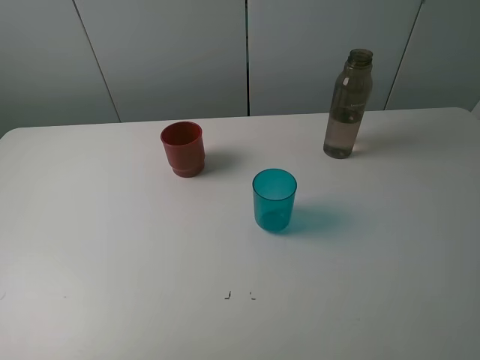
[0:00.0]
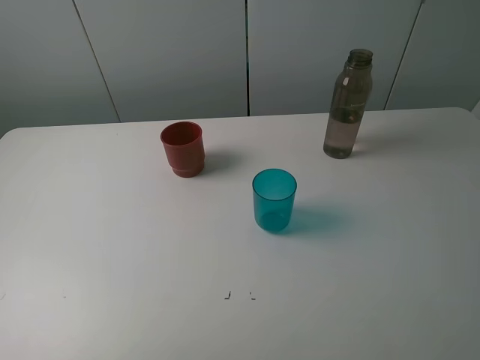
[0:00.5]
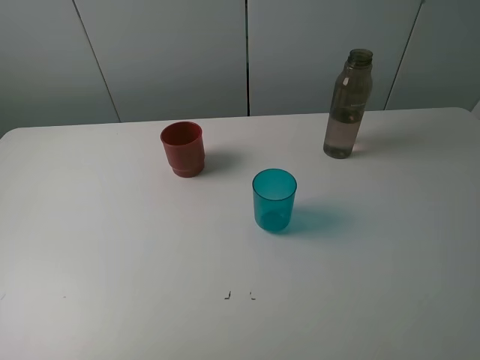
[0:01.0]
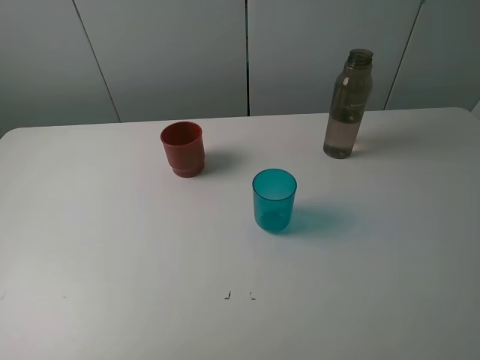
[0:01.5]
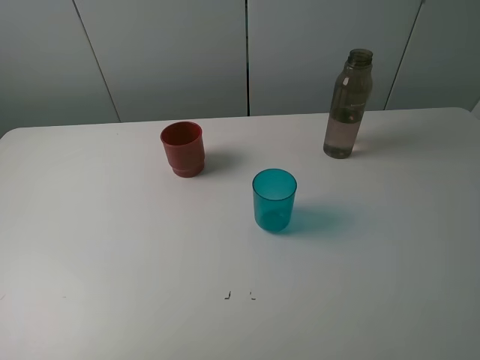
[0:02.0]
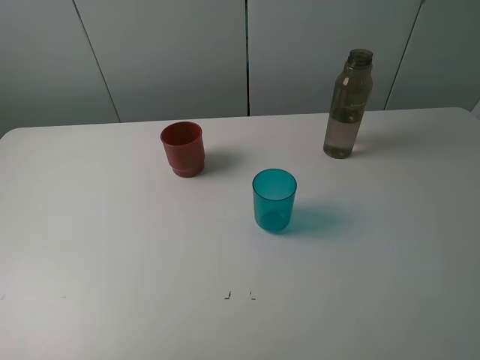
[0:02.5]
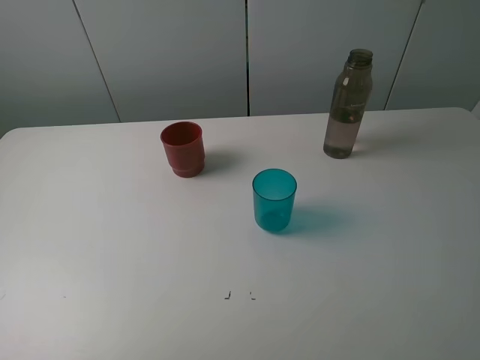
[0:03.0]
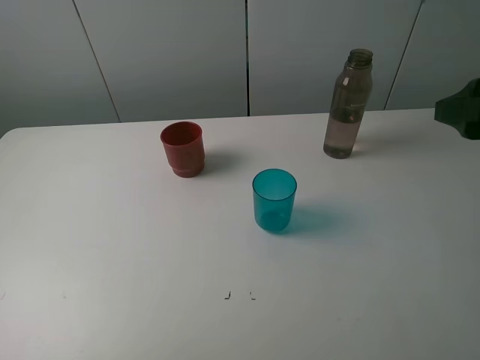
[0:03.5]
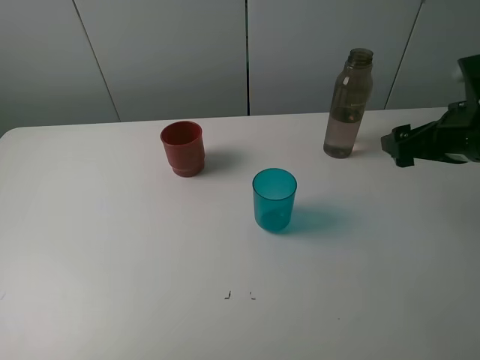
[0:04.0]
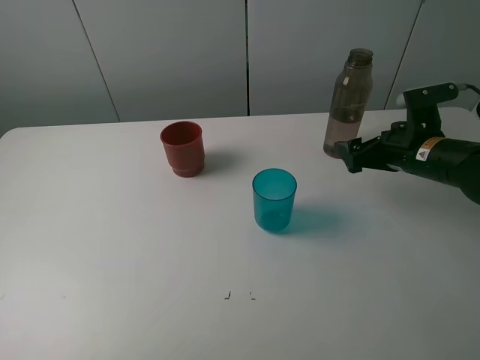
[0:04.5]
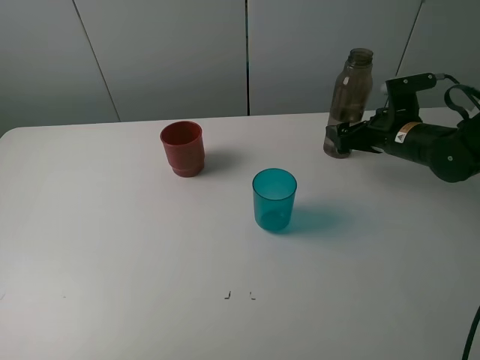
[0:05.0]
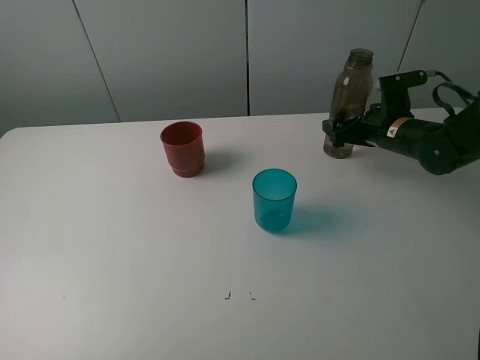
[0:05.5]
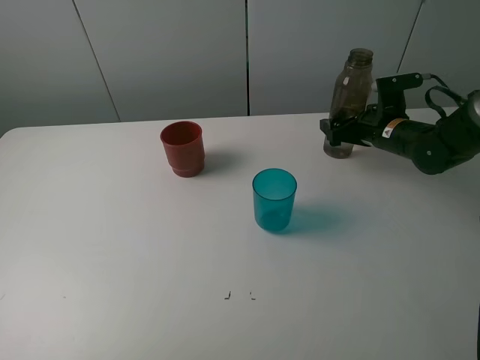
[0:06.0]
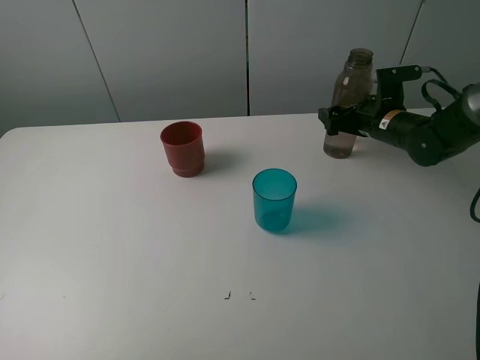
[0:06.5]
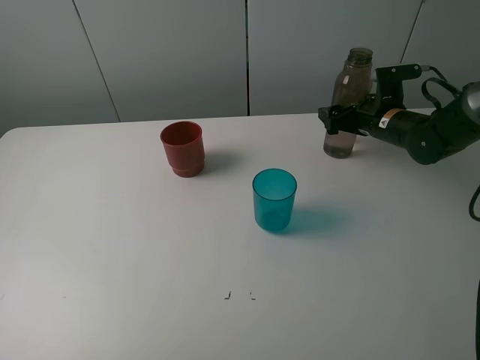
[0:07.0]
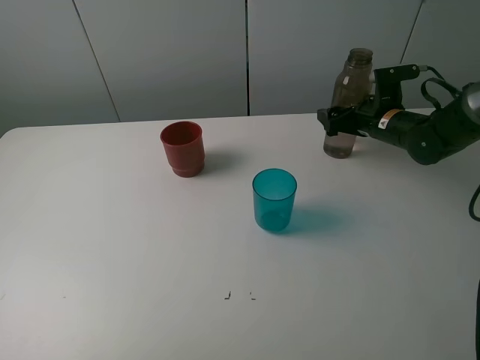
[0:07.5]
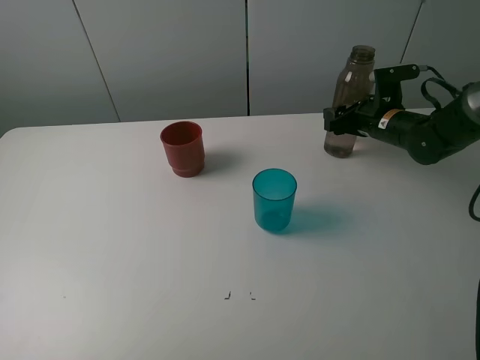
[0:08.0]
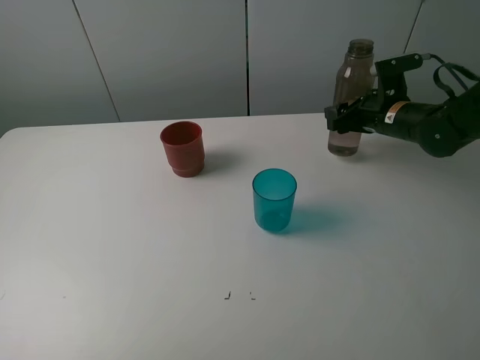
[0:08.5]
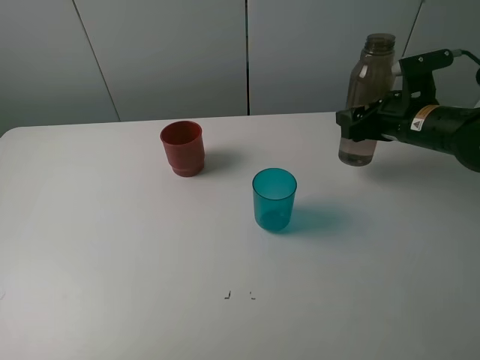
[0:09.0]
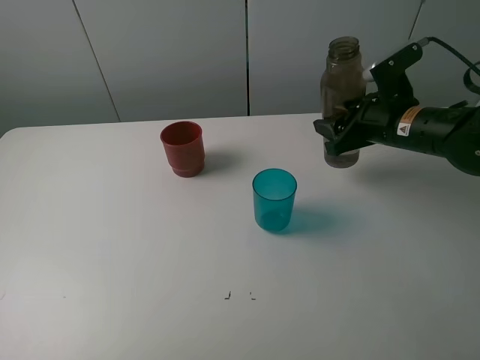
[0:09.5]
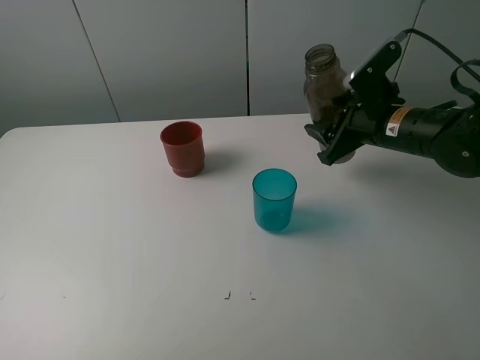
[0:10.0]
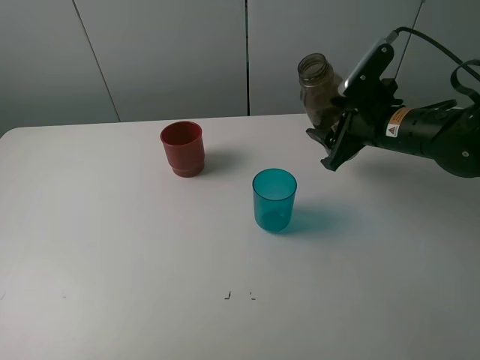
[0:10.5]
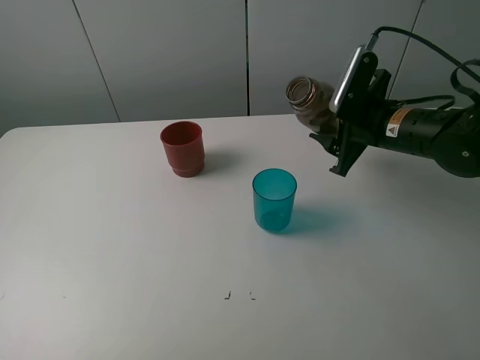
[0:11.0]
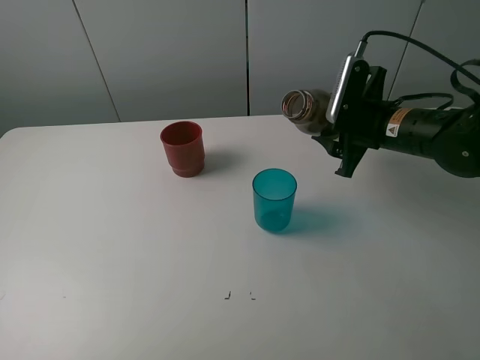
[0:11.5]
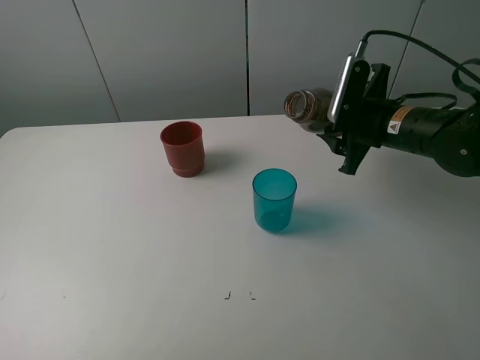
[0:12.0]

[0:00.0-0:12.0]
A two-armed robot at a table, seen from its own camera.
Task of the whole recording: pick up the bottle and pour water into the cup, then pick up the cup containing water and pour it into another cup.
Step, 0.0 to 8.0 s: Grasp the brown bottle with the right gripper.
0.0 to 2.0 s: The two grippers keep their place.
2.0 to 4.0 s: The right gripper is displaced forward and downward by about 30 cm.
4.0 to 6.0 s: The right gripper goes approximately 15 cm forward and downward.
6.0 to 8.0 s: The right gripper closes.
8.0 to 10.0 s: The right gripper travels backward and upward by some 10 cm.

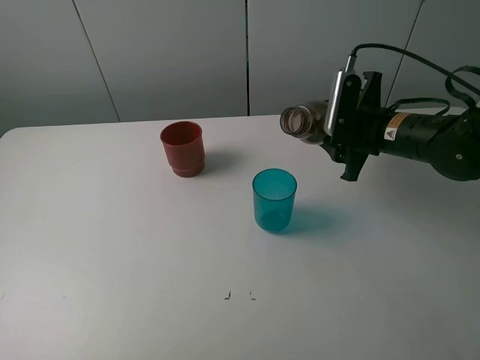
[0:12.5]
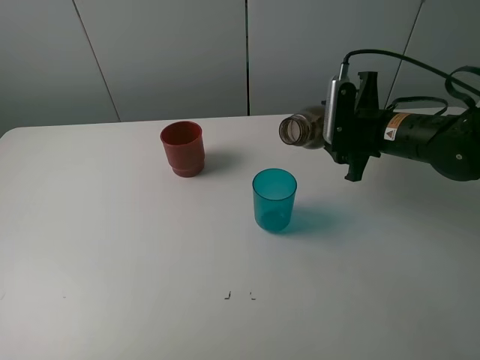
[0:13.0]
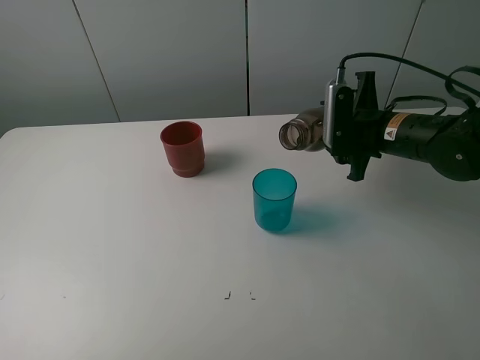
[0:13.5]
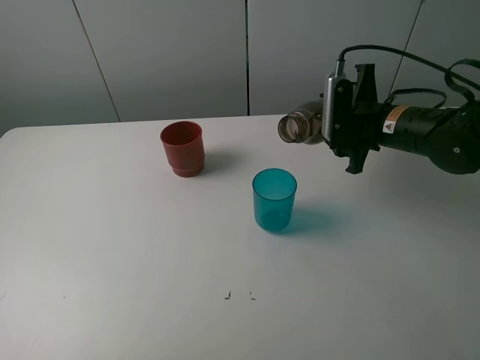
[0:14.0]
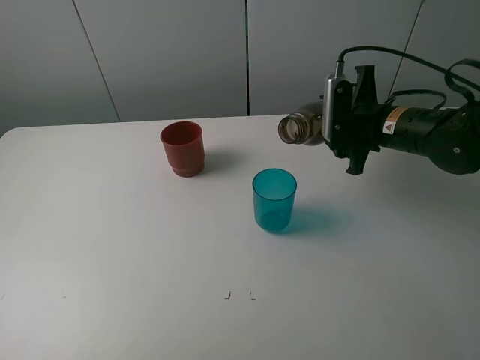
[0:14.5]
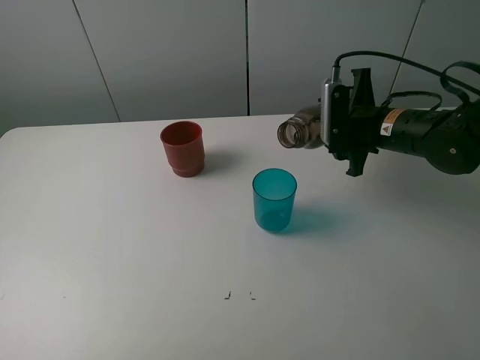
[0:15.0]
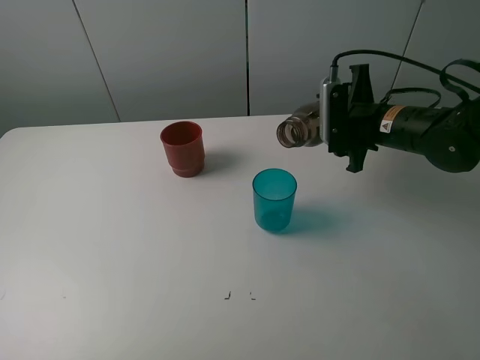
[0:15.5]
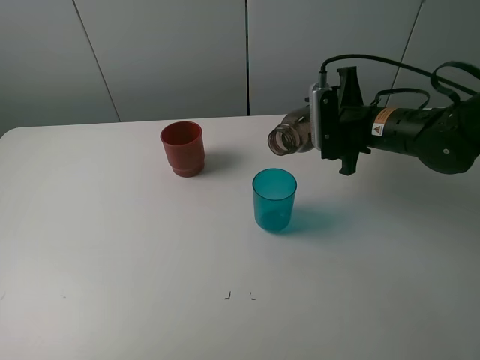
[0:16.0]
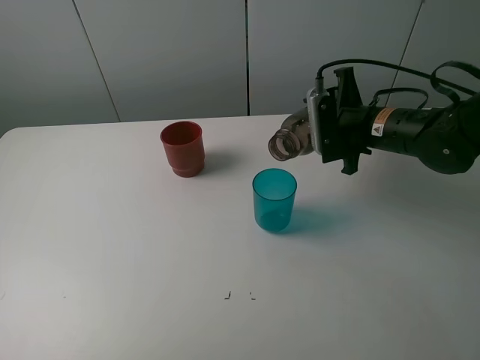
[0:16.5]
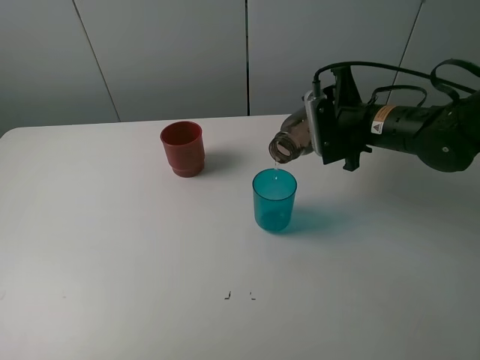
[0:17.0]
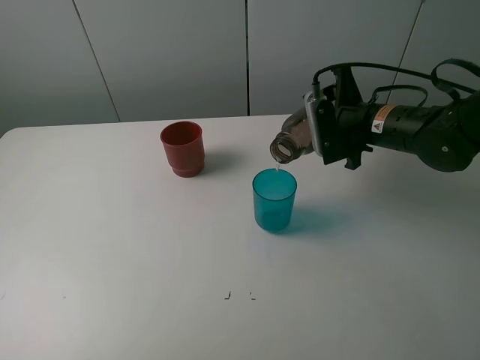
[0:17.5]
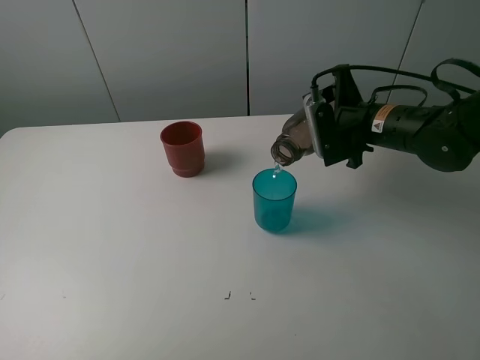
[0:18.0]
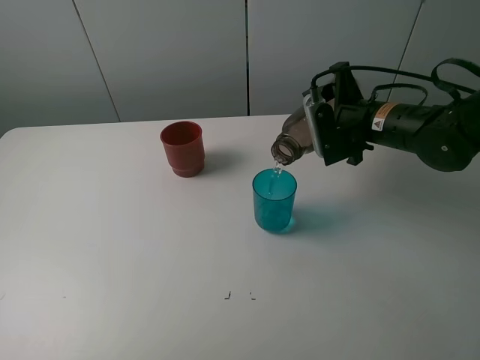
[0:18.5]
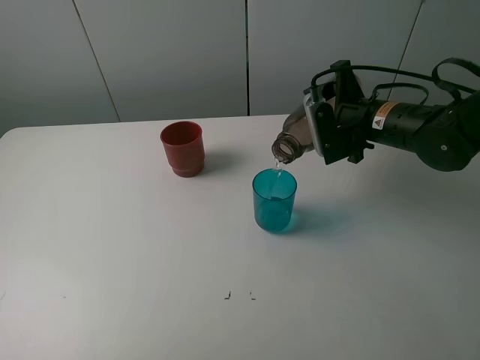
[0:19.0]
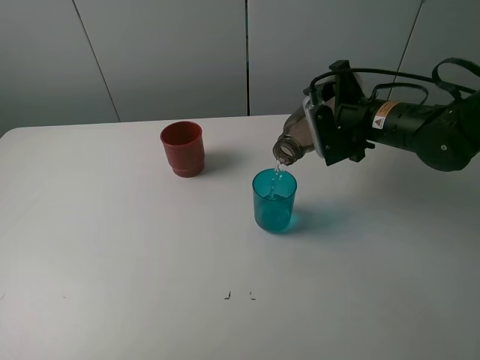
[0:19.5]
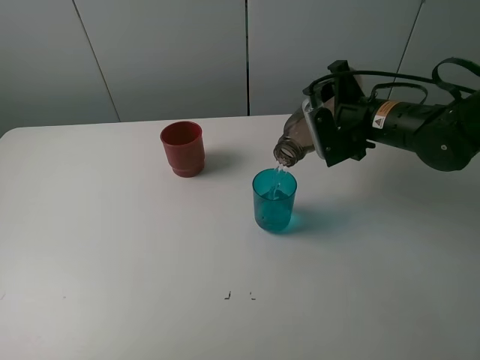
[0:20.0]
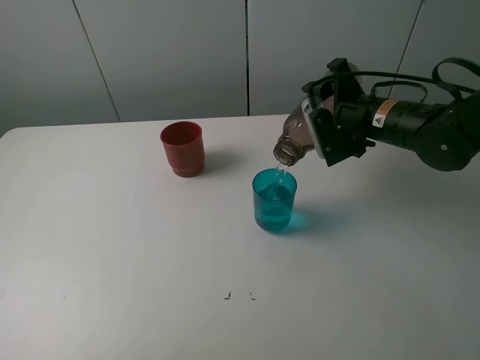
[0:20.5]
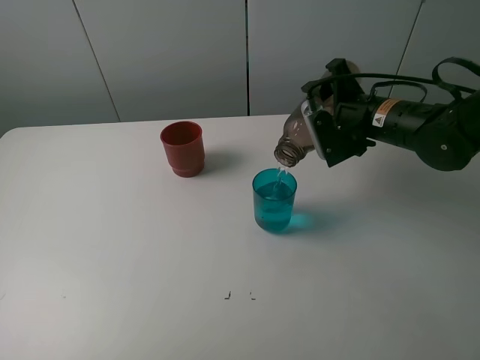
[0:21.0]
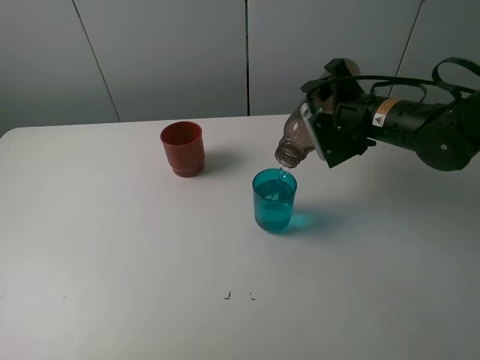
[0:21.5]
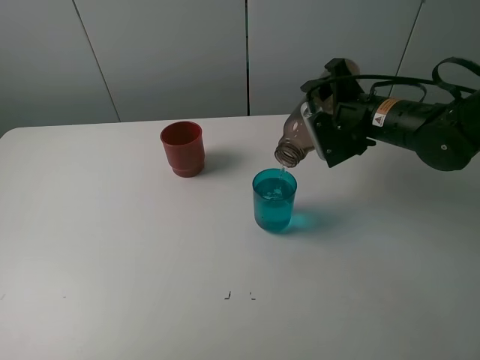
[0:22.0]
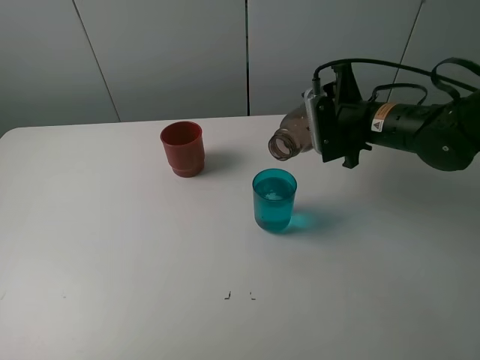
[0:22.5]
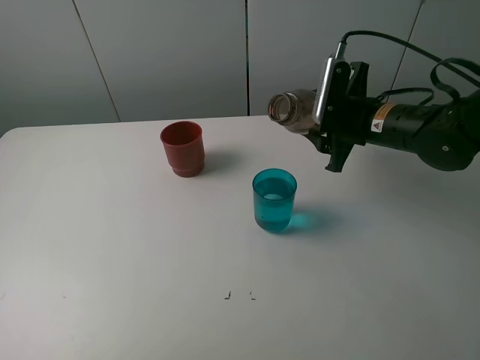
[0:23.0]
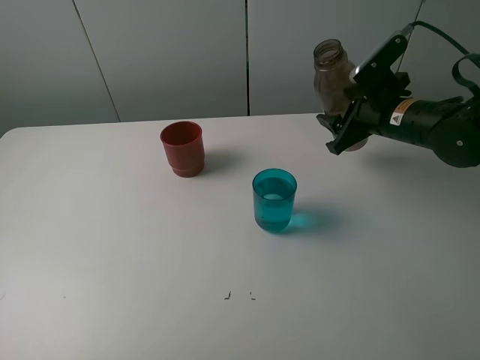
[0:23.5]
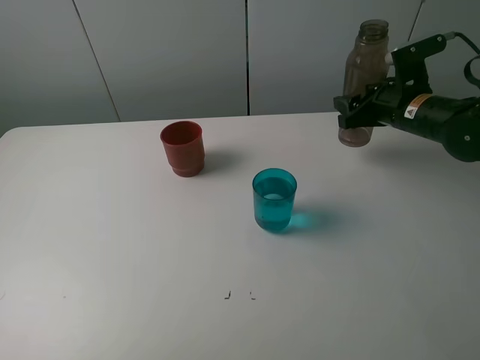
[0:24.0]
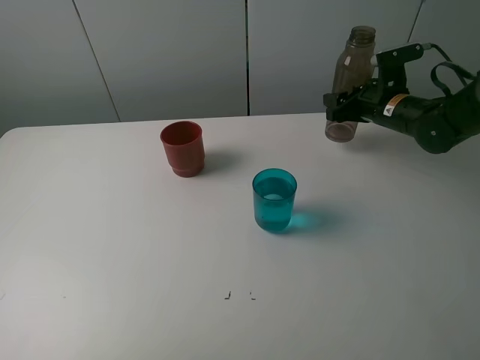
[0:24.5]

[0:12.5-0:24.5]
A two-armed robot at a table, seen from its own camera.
Task of the whole recording: pick up the bottle and pour water into the cup, then pick up the cup containing water and pour it into another cup.
Step, 12.5 to 22.0 s: Pour water from brown bottle to blue cup with the right gripper.
12.5 to 14.5 s: There are only small adjustments of the grippers.
14.5 to 16.5 s: The grippers stay close to where they were, moving slightly.
16.5 to 20.5 s: The grippers move only a little.
20.5 to 22.5 s: The grippers make only small movements.
22.5 to 24.5 s: The right gripper heads forward and to the right, covering about 10 cm.

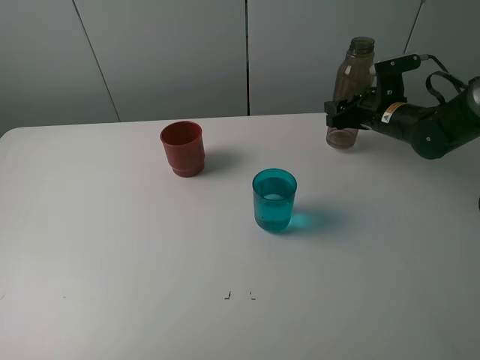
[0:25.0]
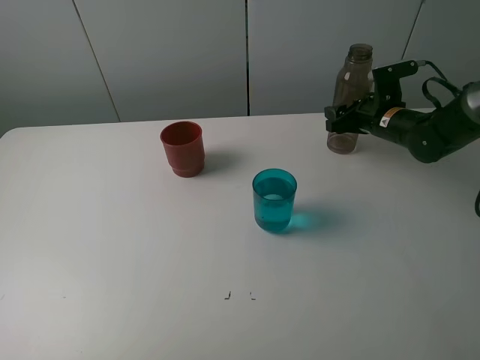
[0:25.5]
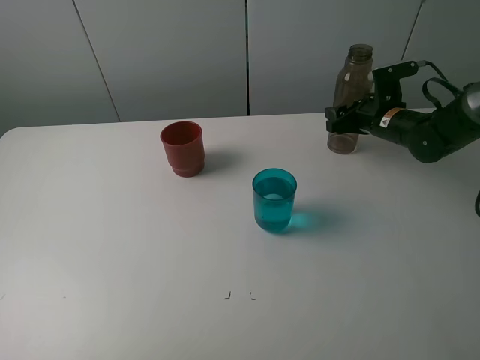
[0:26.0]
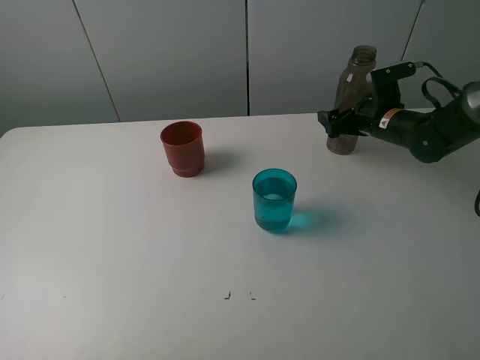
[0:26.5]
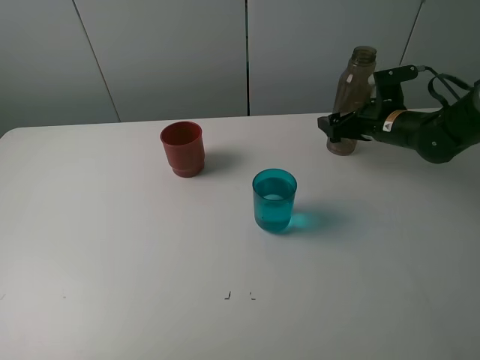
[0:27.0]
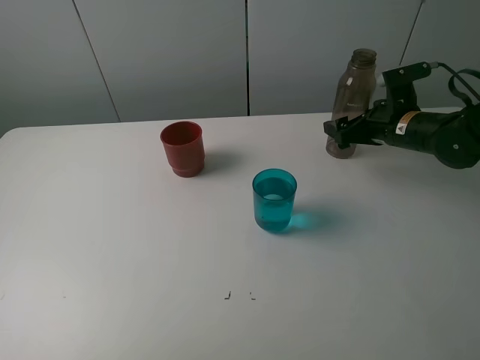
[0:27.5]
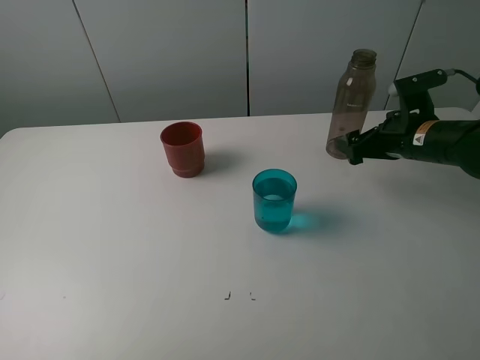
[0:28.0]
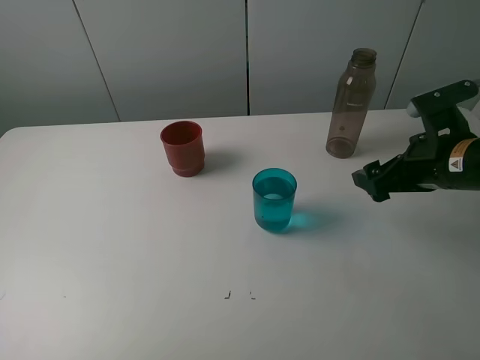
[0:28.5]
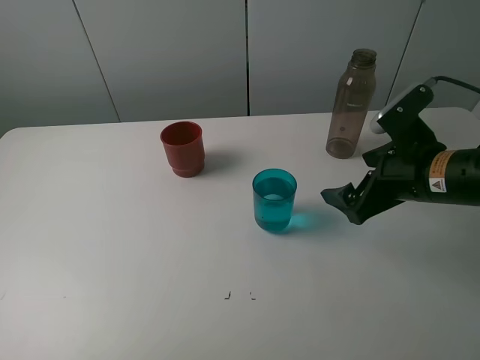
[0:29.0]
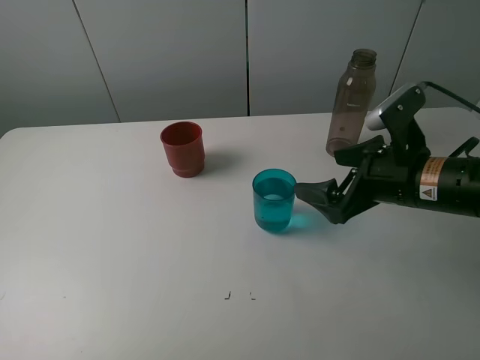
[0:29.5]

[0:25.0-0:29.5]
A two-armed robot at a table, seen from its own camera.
Task of the whole recording: pick up the bottle and pour water into the cup, then pick up the cup containing water and pour it into another cup.
25.0 to 27.0 s: The right gripper opens.
27.0 to 29.5 s: The right gripper shifts approximately 20 cm backward.
